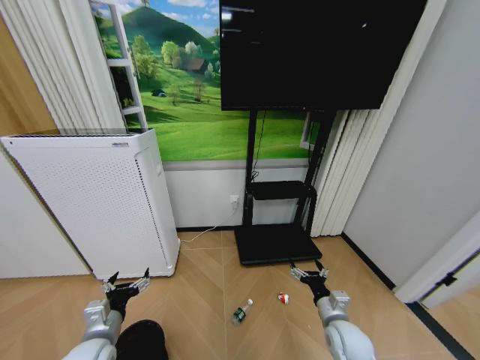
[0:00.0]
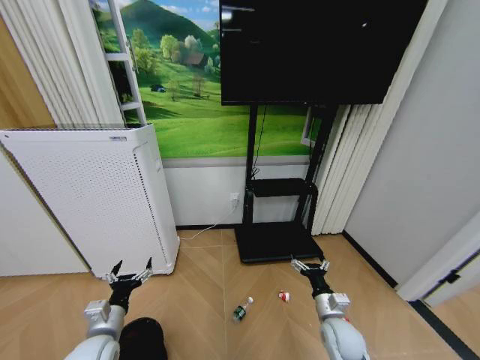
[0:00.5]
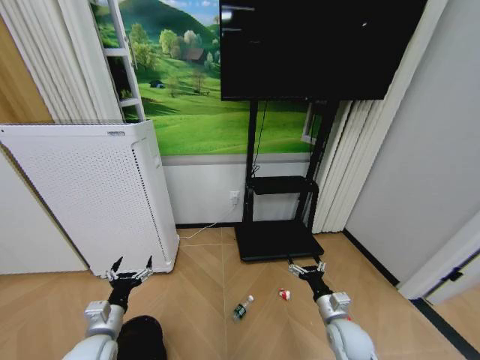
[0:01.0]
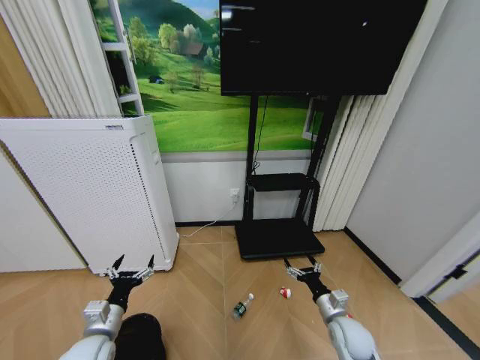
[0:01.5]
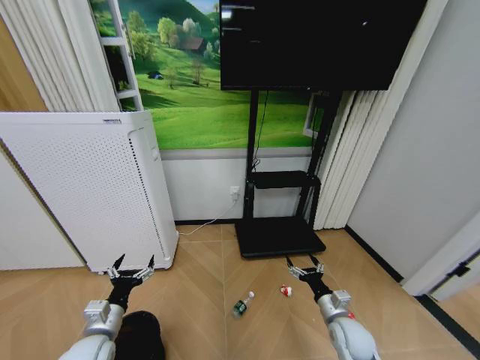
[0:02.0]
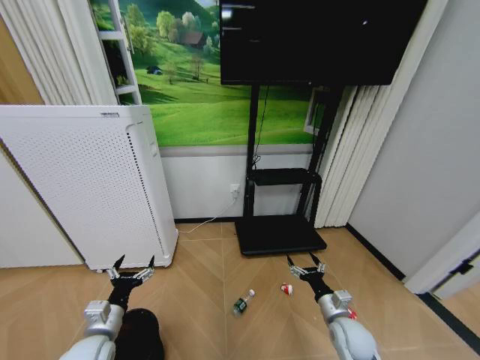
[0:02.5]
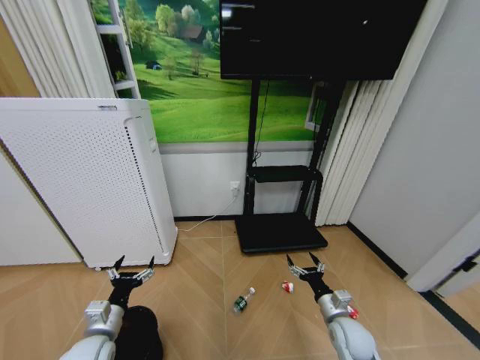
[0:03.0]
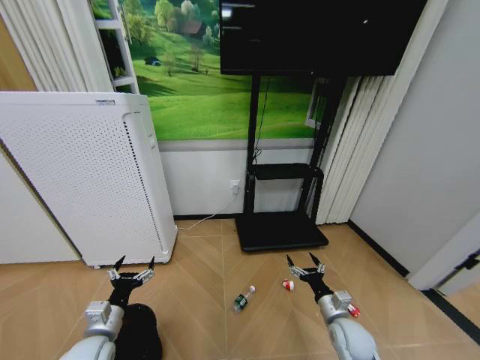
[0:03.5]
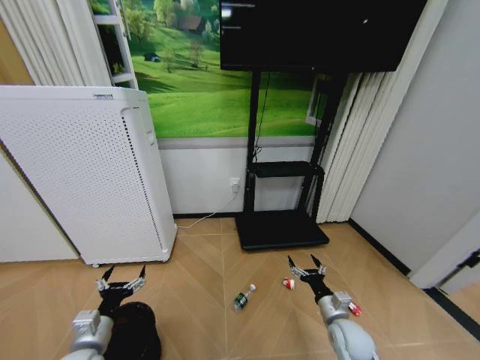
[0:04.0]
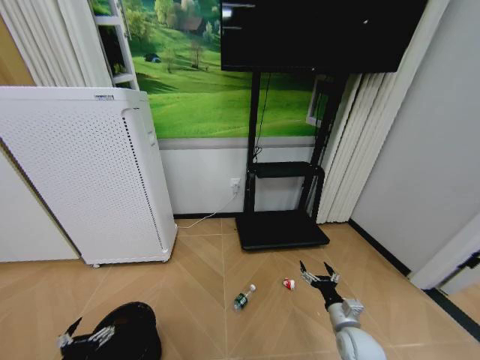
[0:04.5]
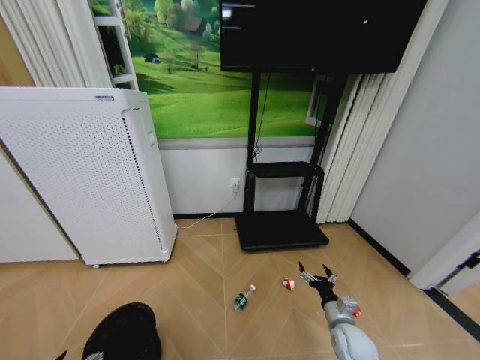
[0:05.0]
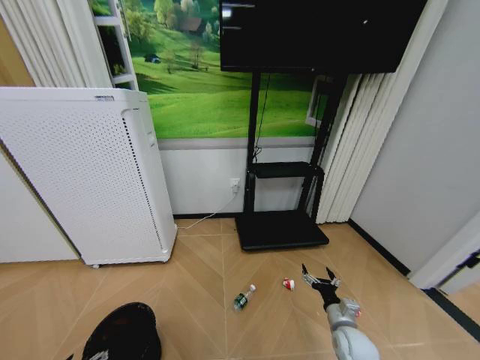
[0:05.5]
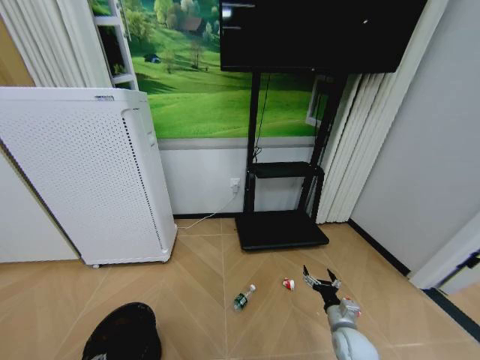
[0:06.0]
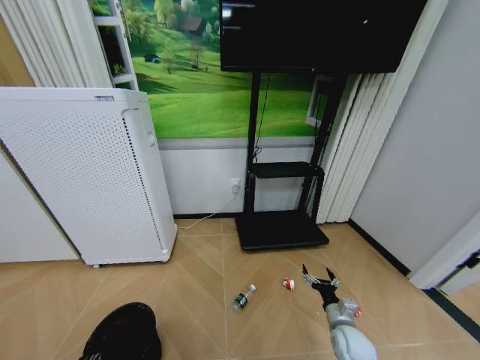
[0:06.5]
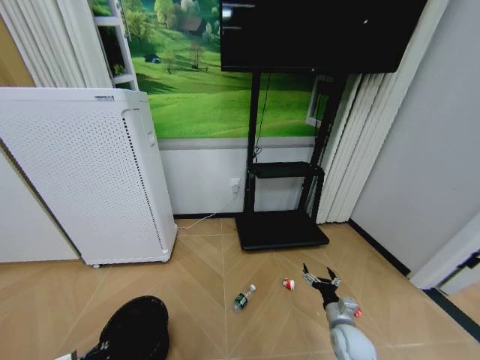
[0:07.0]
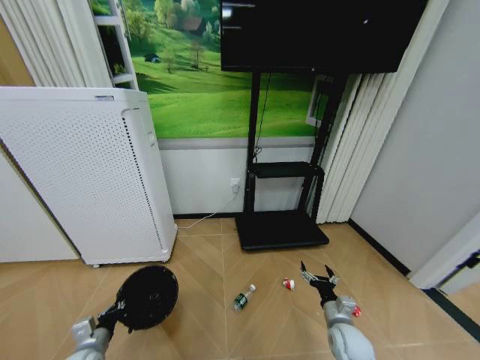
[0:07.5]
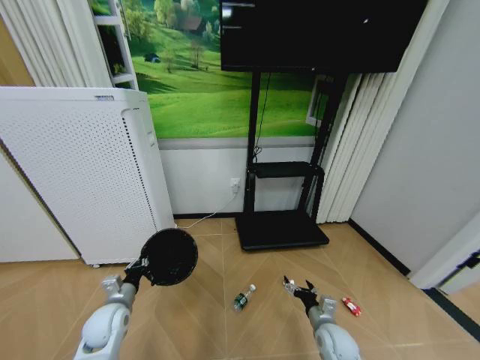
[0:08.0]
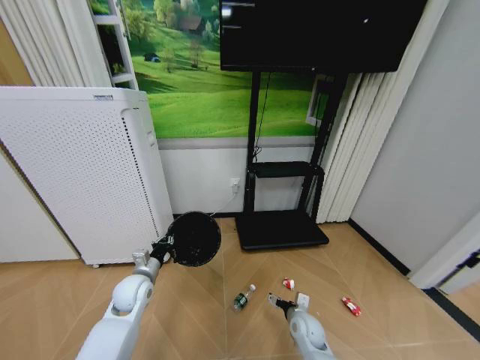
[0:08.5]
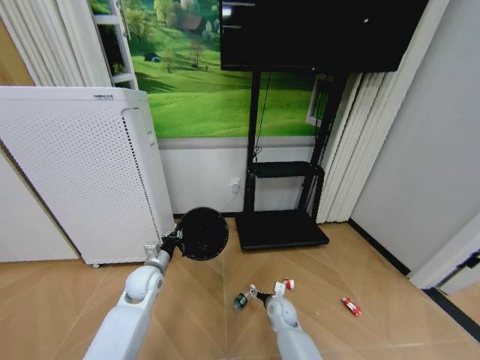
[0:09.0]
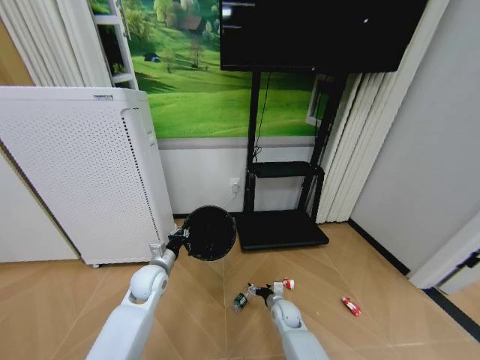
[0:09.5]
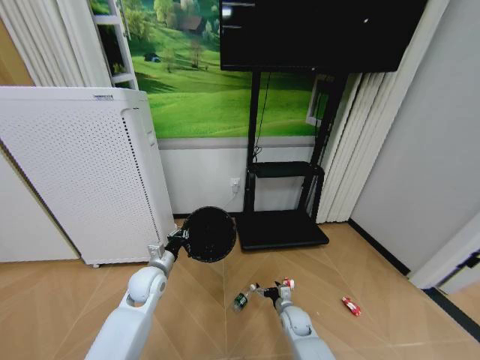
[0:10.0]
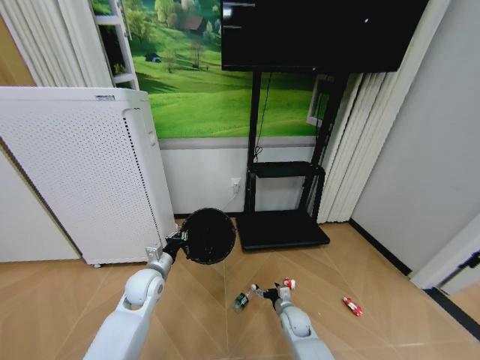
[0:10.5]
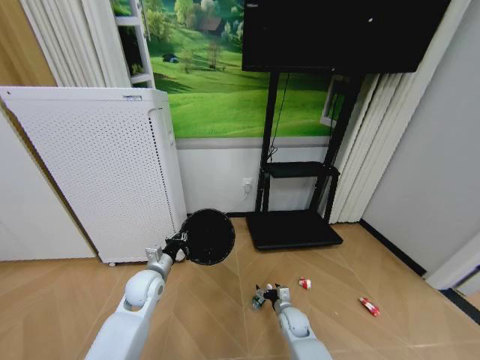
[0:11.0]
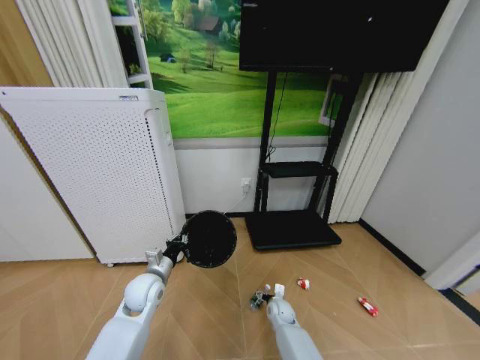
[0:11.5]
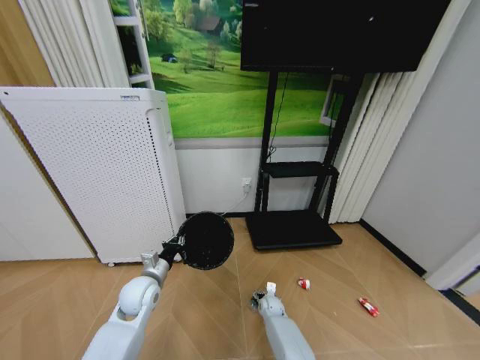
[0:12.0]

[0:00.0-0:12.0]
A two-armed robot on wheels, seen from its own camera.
Task of the whole recording: Pick up the trash bin and place the garbage on the floor into it.
0:00.0 to 0:04.0: The grippers move only a little.
0:04.0 to 0:06.0: The left gripper heads downward, to the left and backward, covering approximately 15 cm.
0:06.0 to 0:08.0: The left gripper goes about 20 cm forward and to the right, and closes, while the right gripper shifts by some 5 cm.
0:08.0 to 0:10.0: The right gripper travels downward, forward and to the left by about 15 cm. Meanwhile the left gripper goes some 10 cm to the right and forward.
0:10.0 to 0:12.0: The right gripper goes roughly 10 cm downward, forward and to the left.

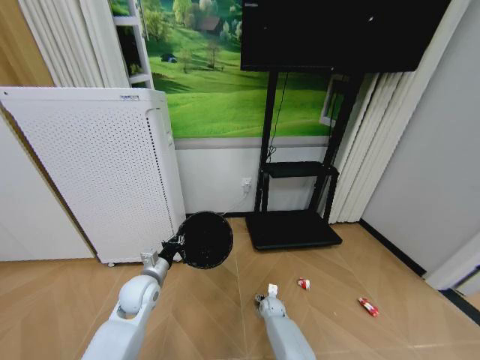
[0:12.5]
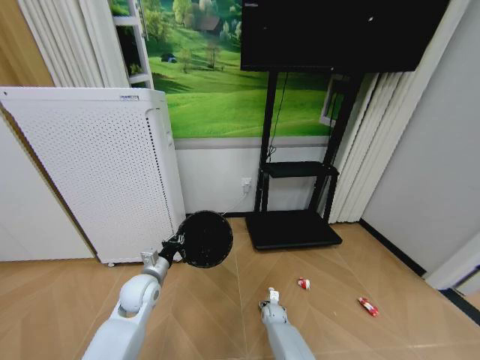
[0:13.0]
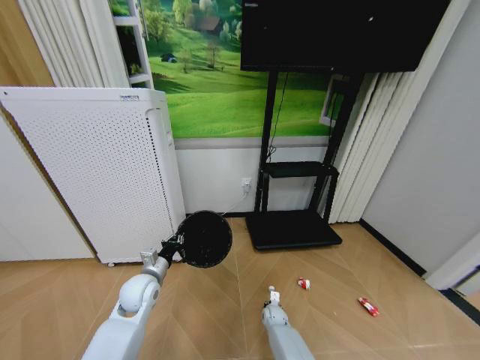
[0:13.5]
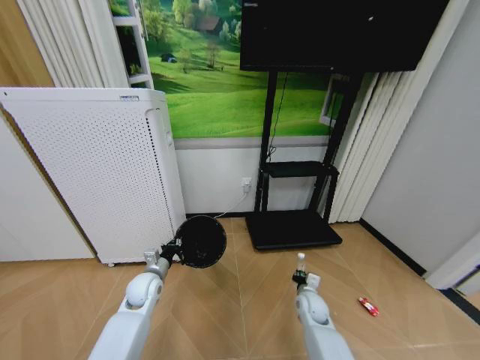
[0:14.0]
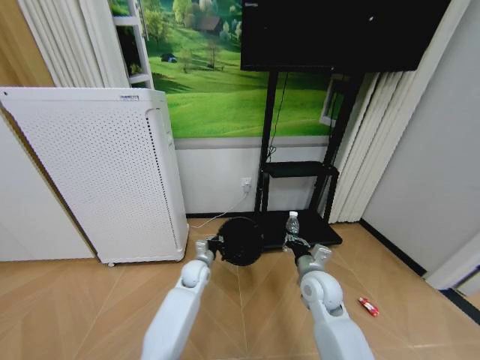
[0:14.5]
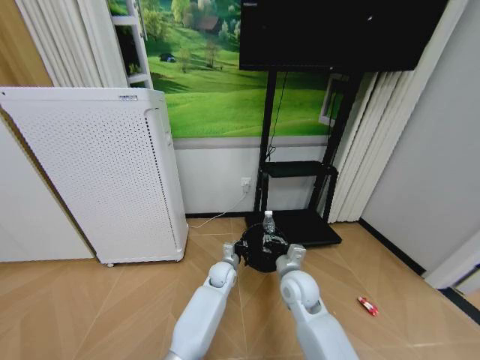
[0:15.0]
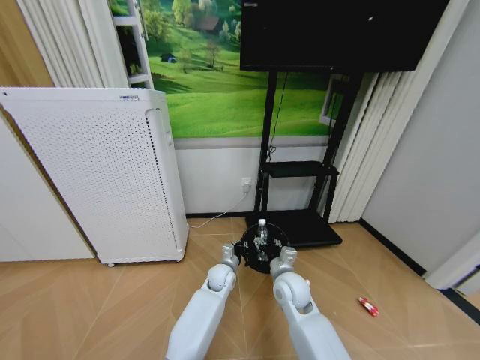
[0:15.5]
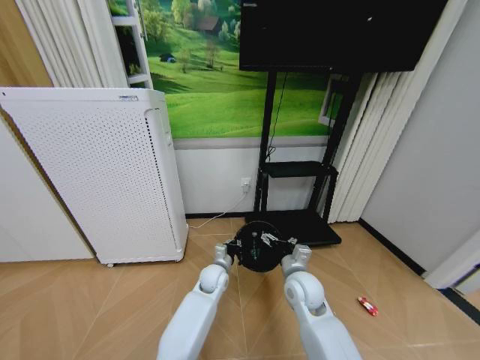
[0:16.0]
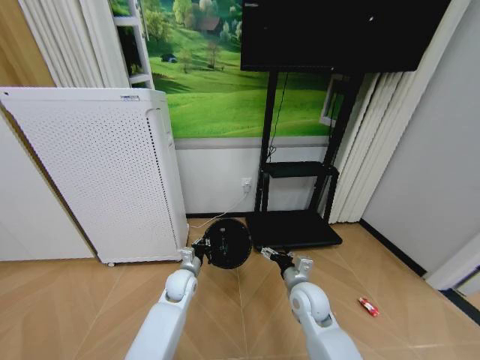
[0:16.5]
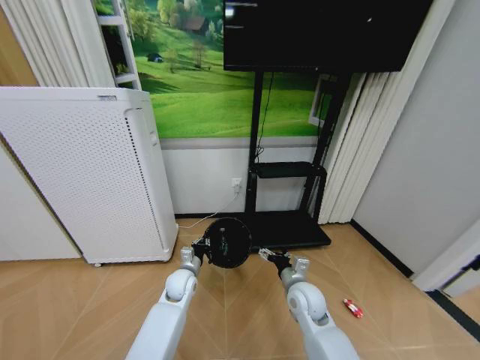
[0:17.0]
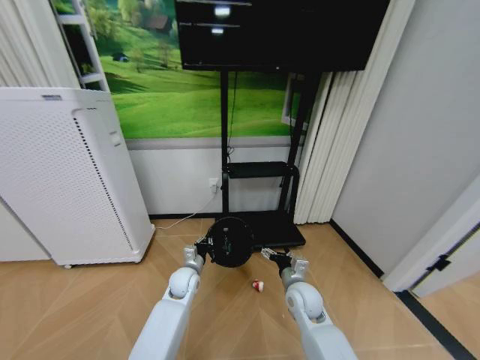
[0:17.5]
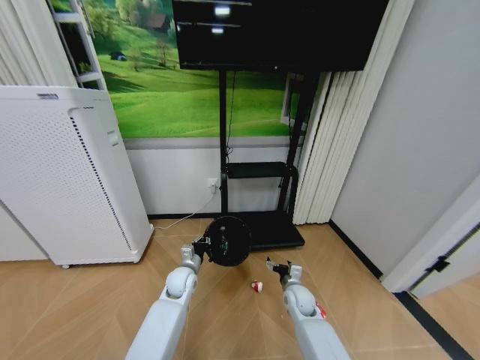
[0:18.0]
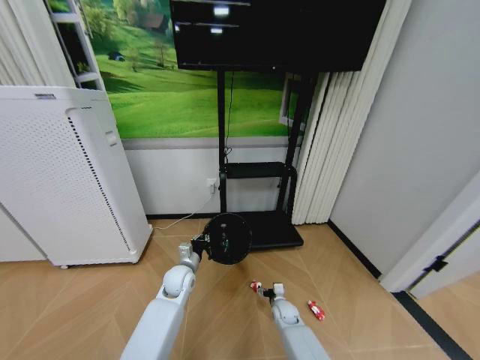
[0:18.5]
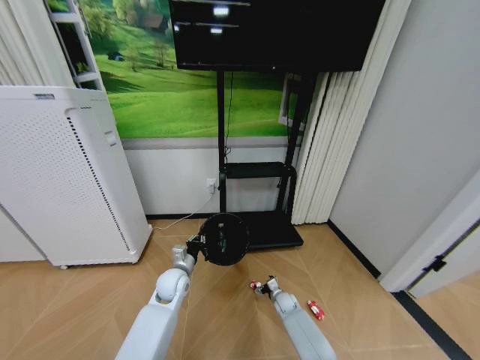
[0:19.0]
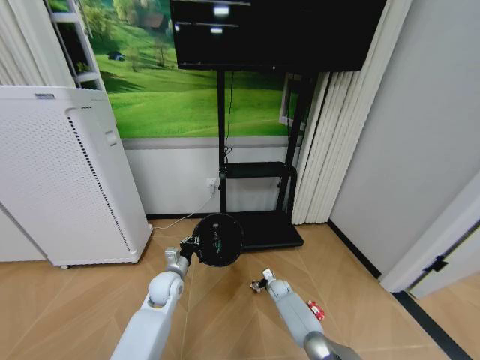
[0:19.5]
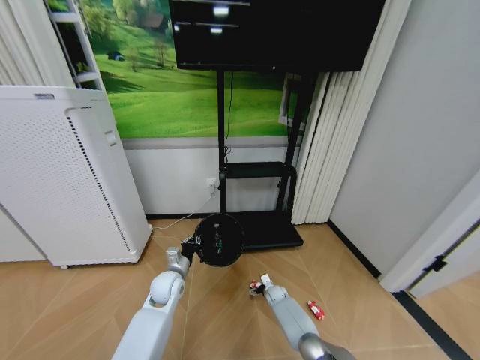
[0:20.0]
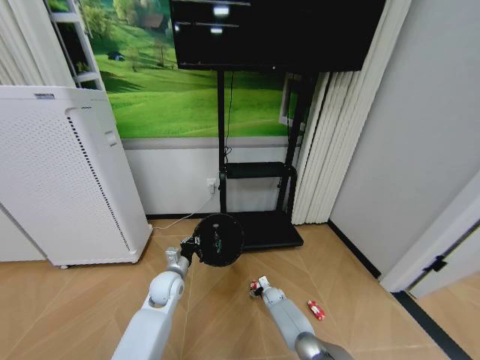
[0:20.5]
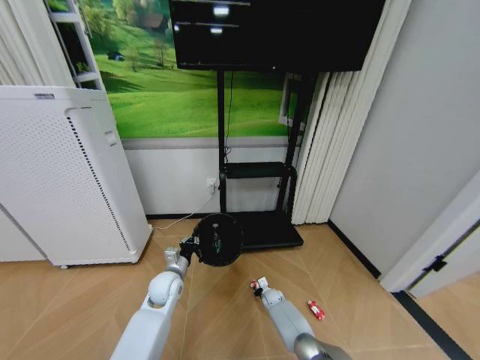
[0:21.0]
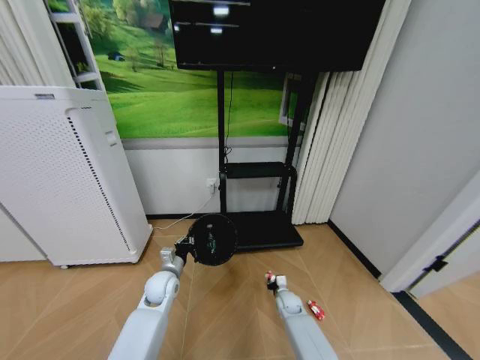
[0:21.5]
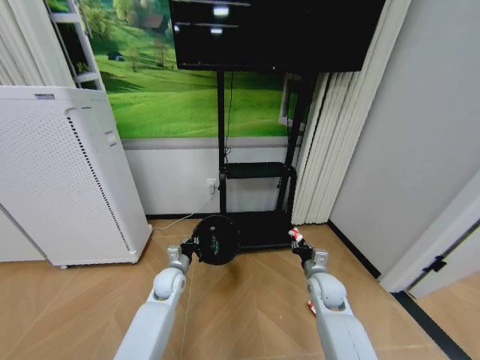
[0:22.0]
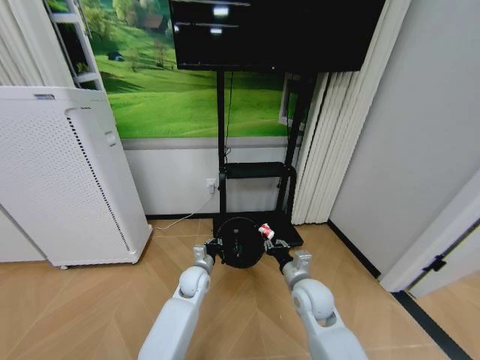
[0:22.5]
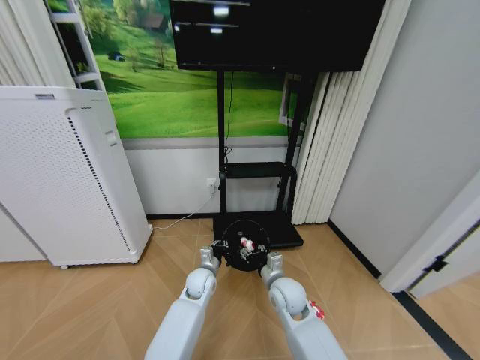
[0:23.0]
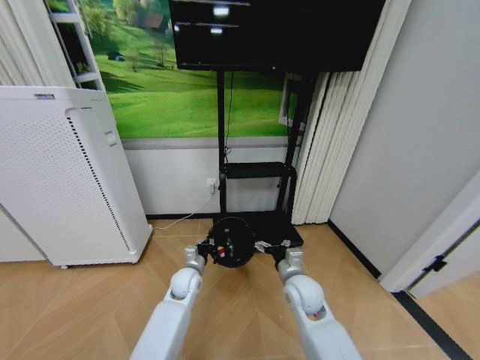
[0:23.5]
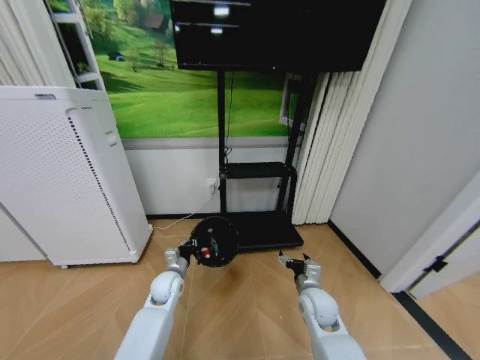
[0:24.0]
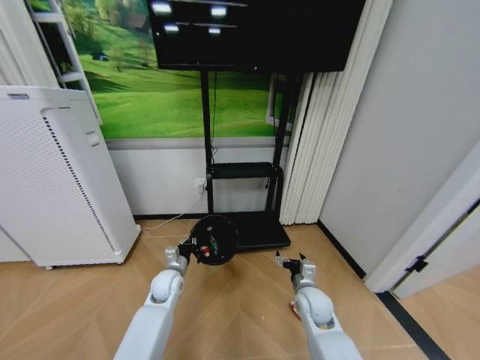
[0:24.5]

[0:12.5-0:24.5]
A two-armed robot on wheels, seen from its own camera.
Task of the whole recording: Pick up the trash bin and place the garbage on the floor into it.
0:12.5 to 0:14.5: The right gripper heads upward, covering about 30 cm, and closes; the left gripper moves to the right, forward and downward, approximately 15 cm.
0:14.5 to 0:16.5: The right gripper opens up; the left gripper reaches some 10 cm to the right, then returns.
0:16.5 to 0:18.5: The right gripper heads downward, covering some 25 cm.
0:18.5 to 0:20.5: The right gripper goes approximately 10 cm forward and downward.
0:20.5 to 0:22.5: The right gripper is displaced upward by approximately 30 cm, and closes its fingers, while the left gripper shifts approximately 10 cm to the right.
0:22.5 to 0:24.5: The right gripper goes some 5 cm downward, moves roughly 5 cm to the left and comes back, and opens its fingers, while the left gripper is displaced to the left by some 10 cm.

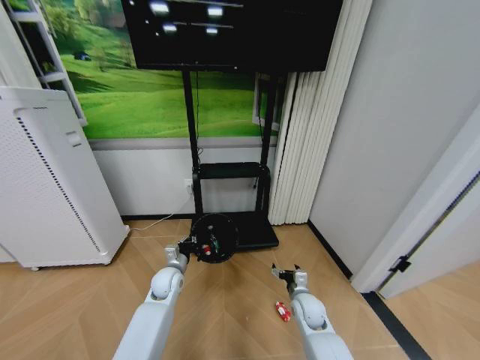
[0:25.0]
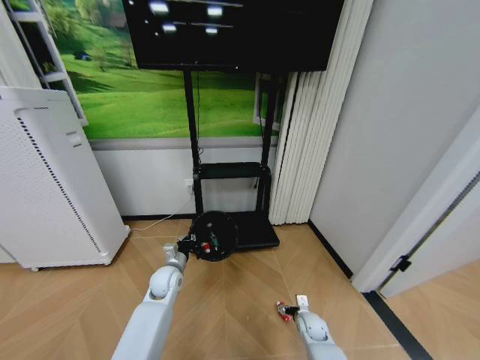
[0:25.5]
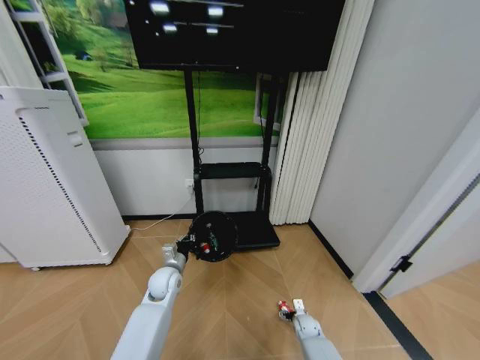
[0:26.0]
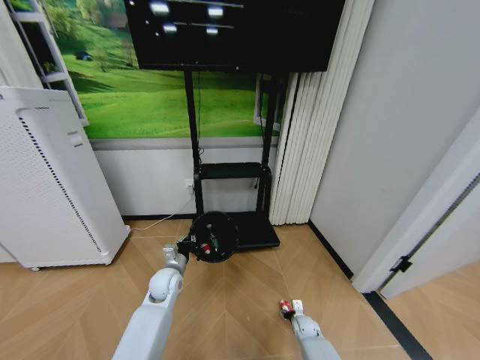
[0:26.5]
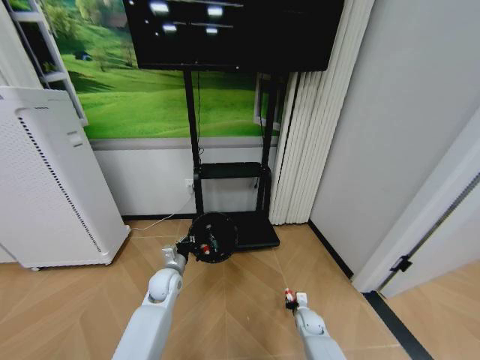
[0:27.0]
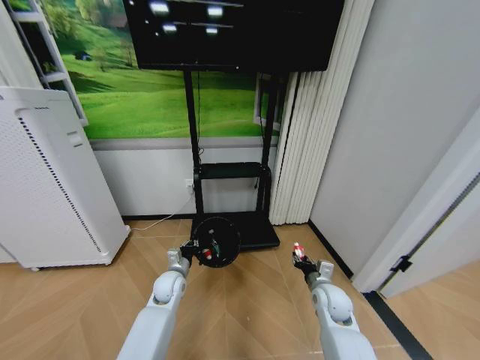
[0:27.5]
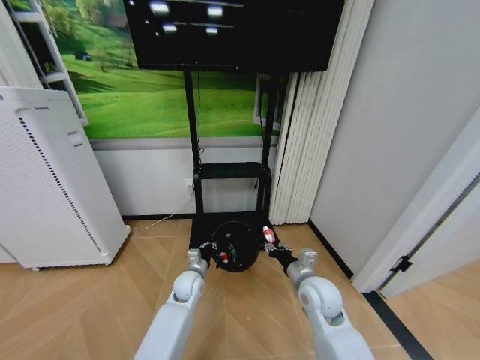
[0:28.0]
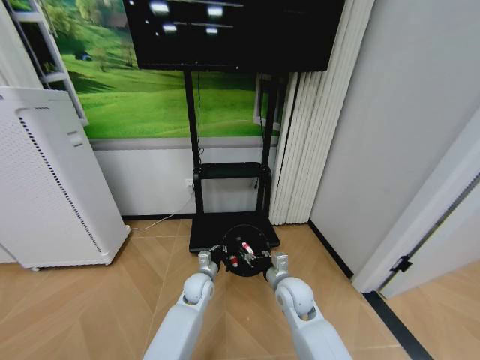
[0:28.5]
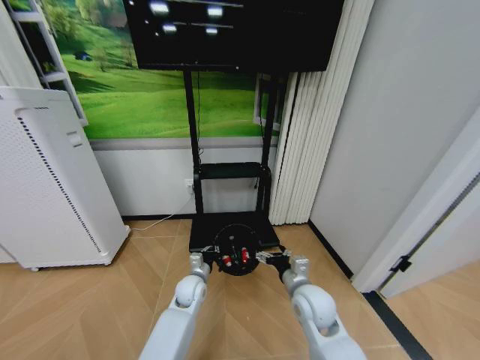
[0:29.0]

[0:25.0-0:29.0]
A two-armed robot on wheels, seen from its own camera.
Task of the whole recording: Pick up the trash bin and place the garbage on the floor into it.
0:25.0 to 0:27.0: The right gripper shifts some 15 cm downward, and closes its fingers.
0:27.0 to 0:29.0: The right gripper goes approximately 30 cm upward, and opens its fingers. Meanwhile the left gripper shifts roughly 5 cm to the right.
